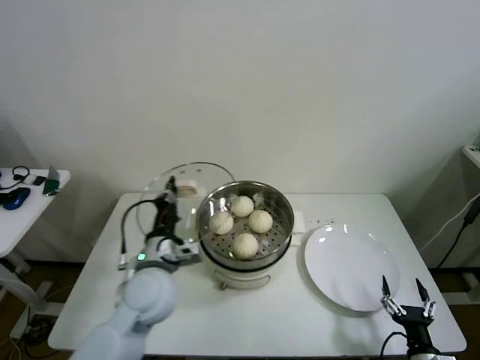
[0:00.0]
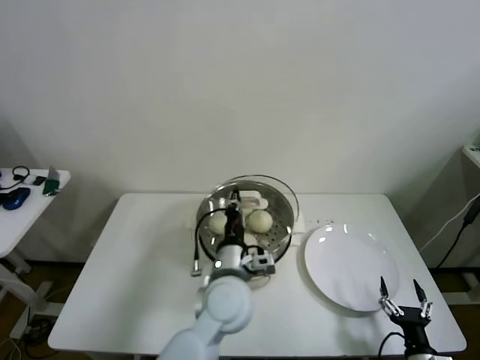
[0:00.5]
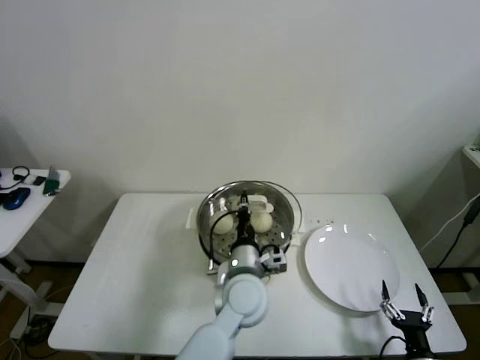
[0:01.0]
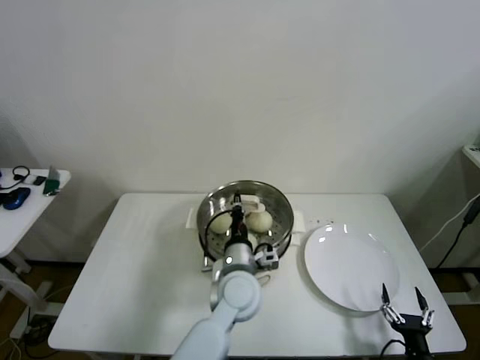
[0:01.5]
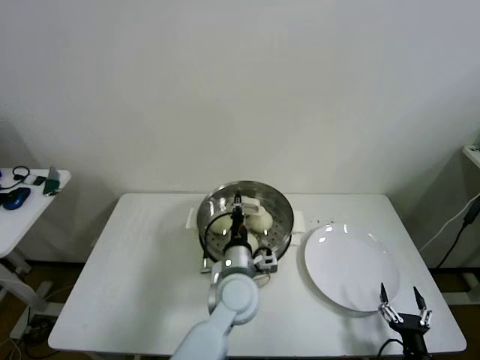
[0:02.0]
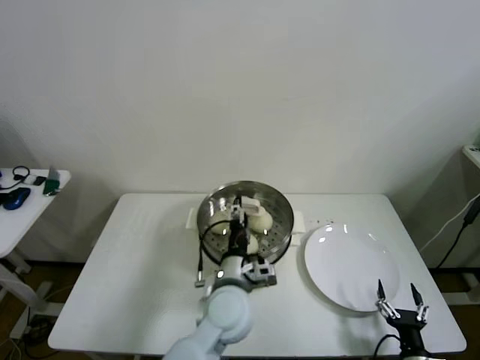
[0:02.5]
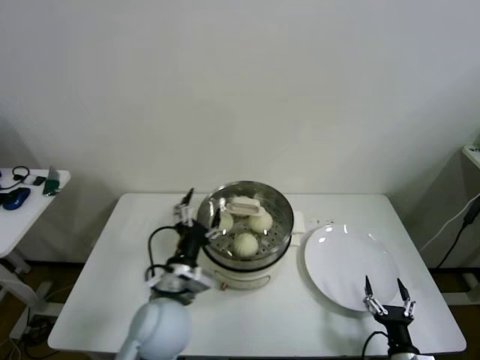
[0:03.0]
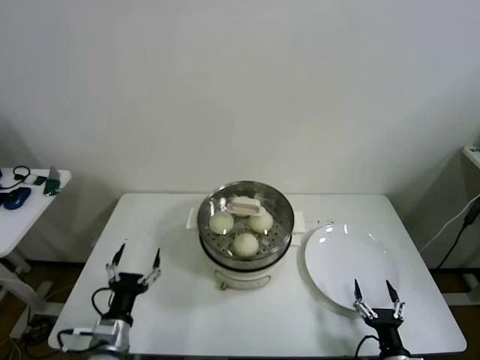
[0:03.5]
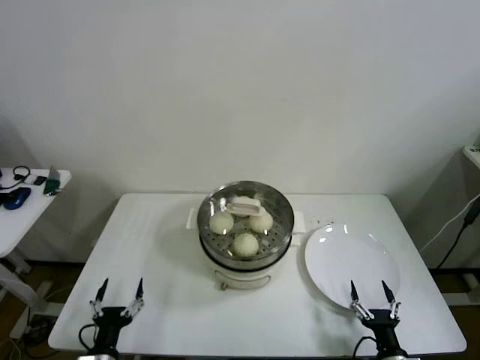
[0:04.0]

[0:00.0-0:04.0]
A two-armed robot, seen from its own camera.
Step, 0:00.0 to 0:02.0: Place the pot lid on the steamer with left gripper.
0:00.0 to 0:02.0: The left gripper goes about 20 cm to the right.
0:02.0 to 0:04.0: The left gripper travels to the left, backward and downward by roughly 35 cm, and opens its fingers.
